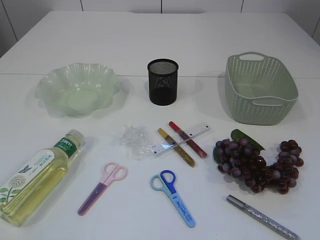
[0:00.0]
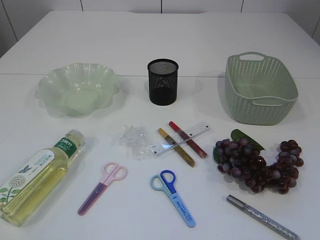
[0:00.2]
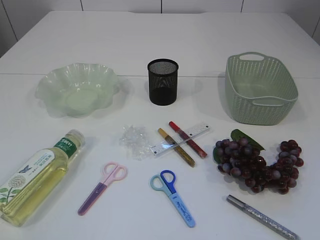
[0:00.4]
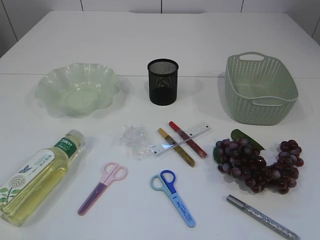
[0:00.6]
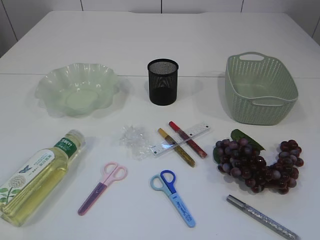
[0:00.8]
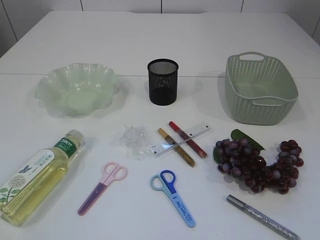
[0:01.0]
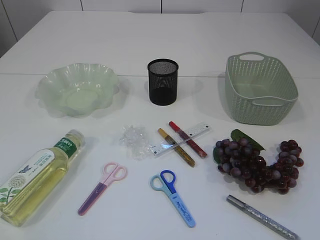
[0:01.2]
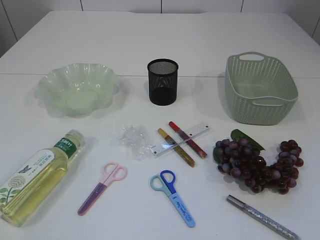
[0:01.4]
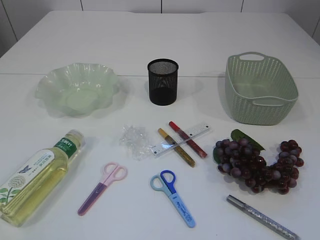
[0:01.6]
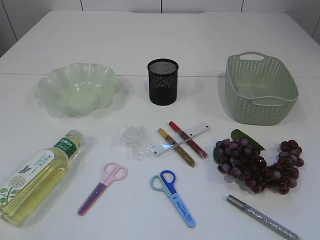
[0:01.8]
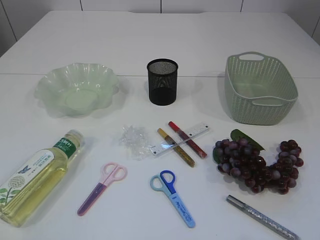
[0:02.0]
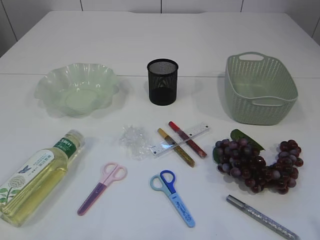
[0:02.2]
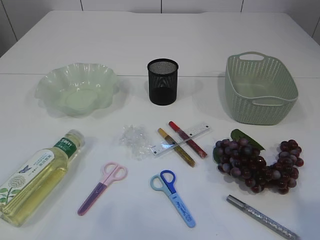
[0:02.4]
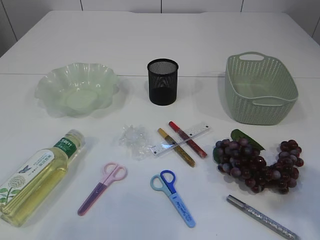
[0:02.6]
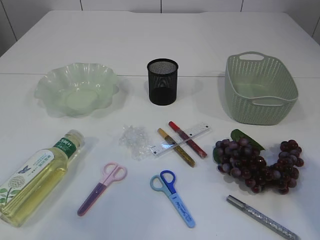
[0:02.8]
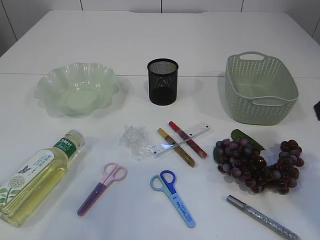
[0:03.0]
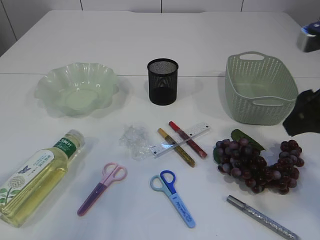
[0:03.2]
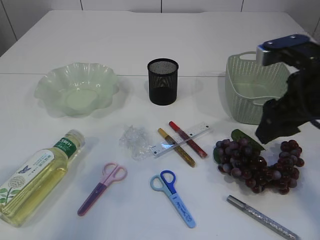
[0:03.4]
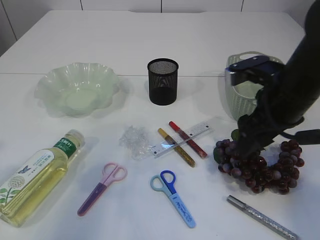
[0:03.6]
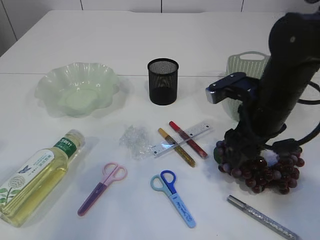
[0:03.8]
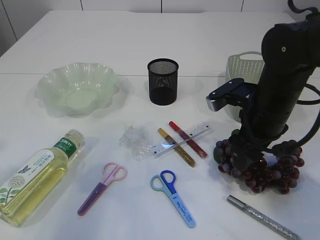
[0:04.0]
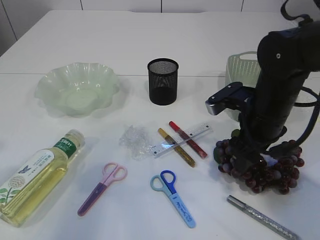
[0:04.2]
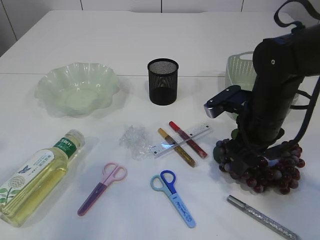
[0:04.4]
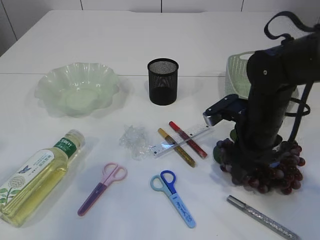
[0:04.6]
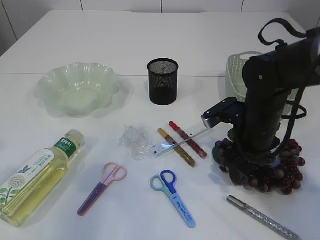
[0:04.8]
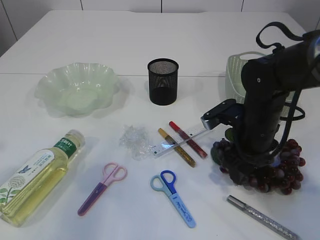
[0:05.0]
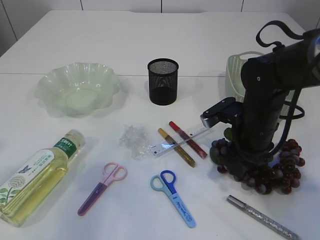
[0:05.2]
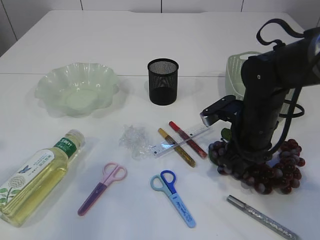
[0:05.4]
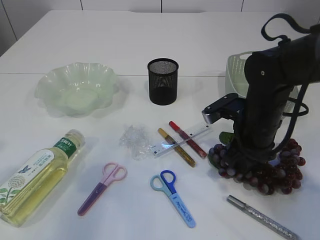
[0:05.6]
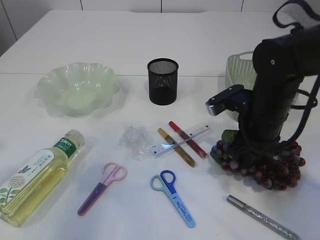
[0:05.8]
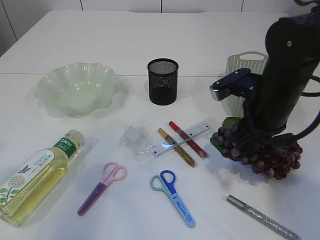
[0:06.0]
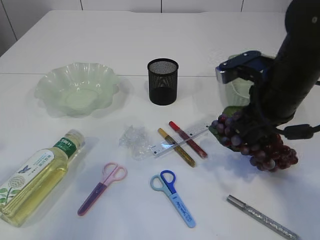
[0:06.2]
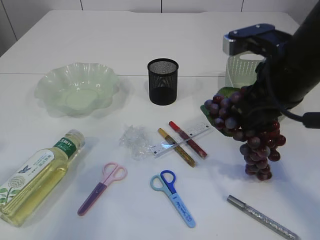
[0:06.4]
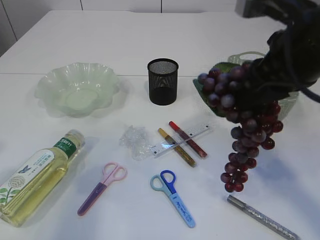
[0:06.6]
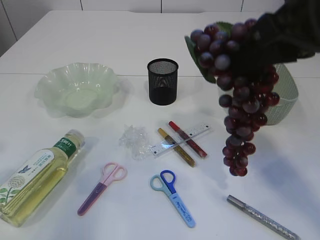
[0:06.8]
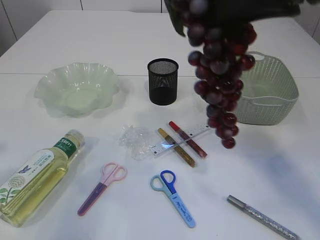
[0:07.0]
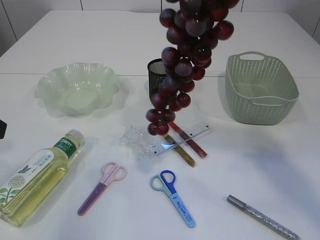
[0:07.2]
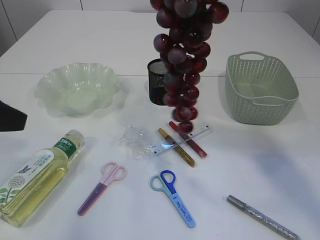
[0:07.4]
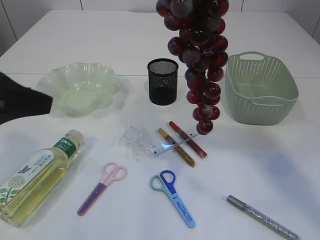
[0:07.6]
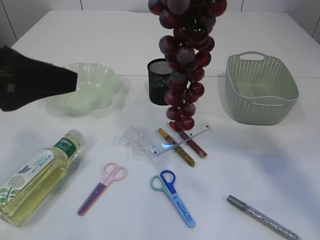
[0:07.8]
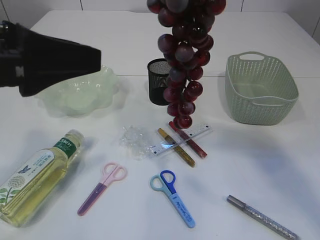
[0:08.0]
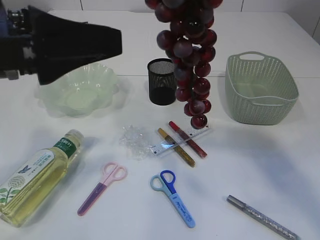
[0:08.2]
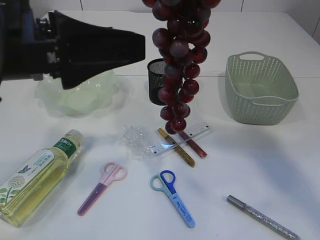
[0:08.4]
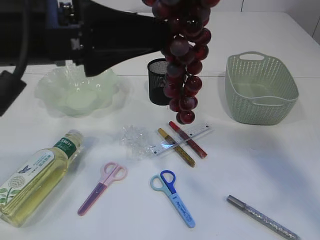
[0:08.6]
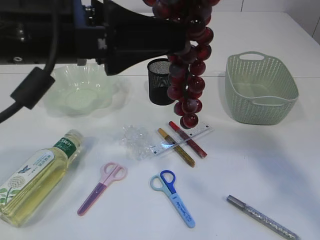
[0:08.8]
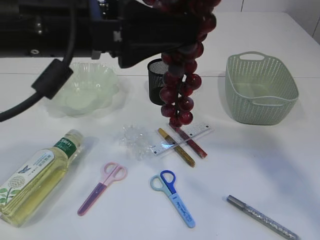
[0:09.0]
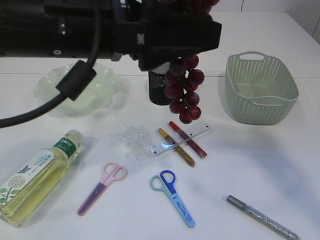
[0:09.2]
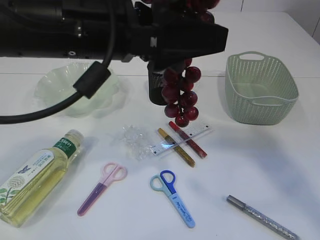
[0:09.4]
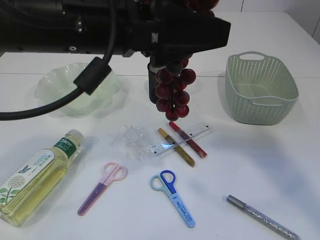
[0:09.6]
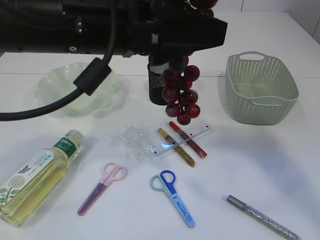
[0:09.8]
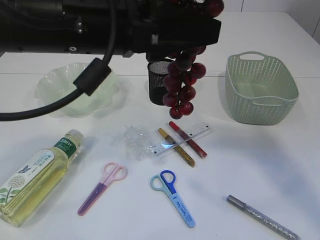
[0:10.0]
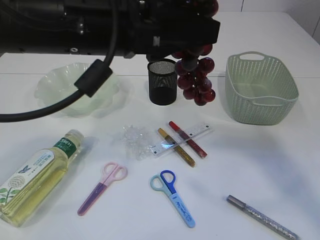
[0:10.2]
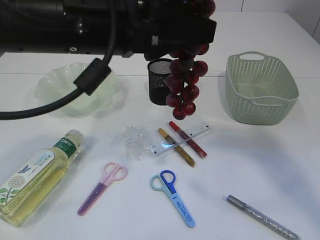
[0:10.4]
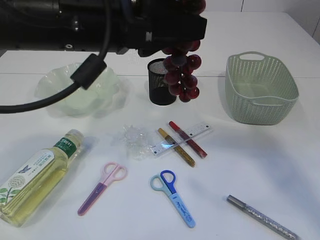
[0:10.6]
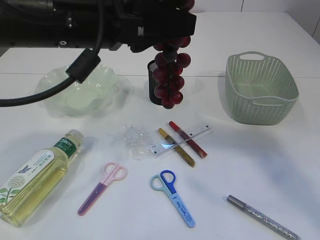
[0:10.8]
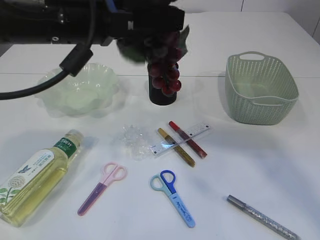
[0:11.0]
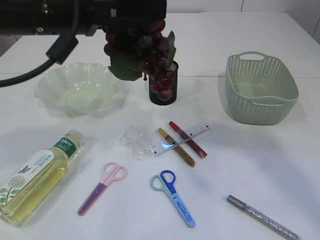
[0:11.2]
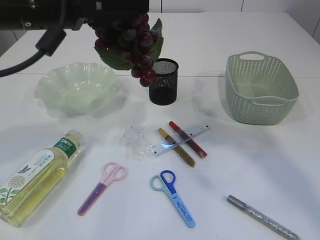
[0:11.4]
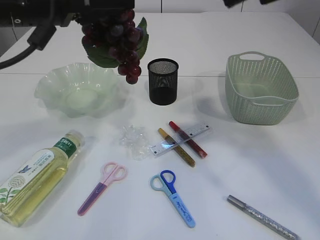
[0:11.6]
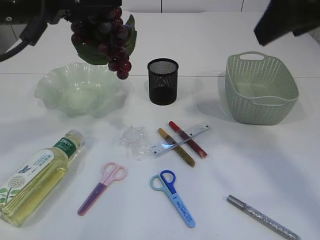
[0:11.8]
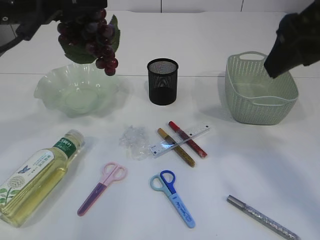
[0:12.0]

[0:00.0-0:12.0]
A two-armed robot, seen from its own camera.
Step, 0.0 to 6.8 s: Pick up the grapes.
Step, 7.0 to 11.6 s: Hand over the grapes.
1.6 to 3.0 s: The left gripper is displaced forward by some 15 cm; the right gripper heads forward, covering about 20 cm.
3.0 to 4.4 s: The right gripper goes approximately 20 cm downward, forward and to the left. The left gripper is displaced forward by some 5 cm, and opens.
4.4 to 6.0 s: The right gripper closes its fingers.
6.0 to 7.6 s: The left gripper travels to the right by some 5 cm, while the right gripper heads upward, covering approximately 25 cm.
7.6 to 9.0 s: The left gripper is displaced to the right by some 10 cm, and opens.
9.0 to 10.4 s: The left gripper closes.
10.4 to 12.0 s: The left gripper goes about 15 cm to the left and forward. The right gripper heads downward and to the right, covering some 10 cm.

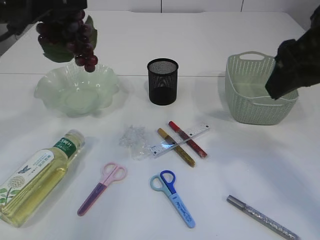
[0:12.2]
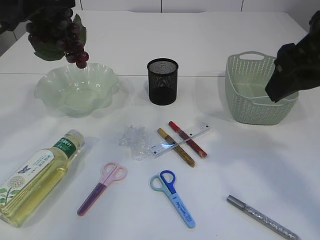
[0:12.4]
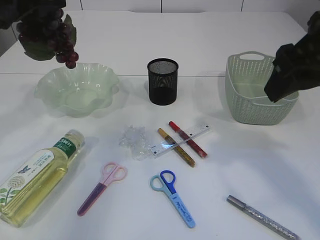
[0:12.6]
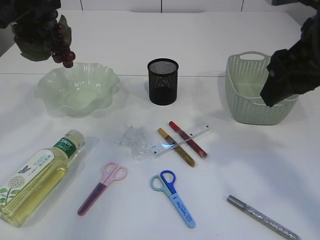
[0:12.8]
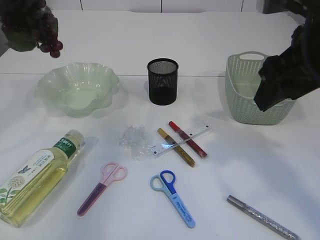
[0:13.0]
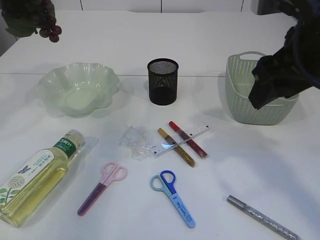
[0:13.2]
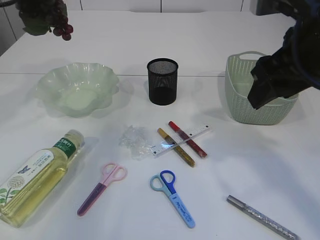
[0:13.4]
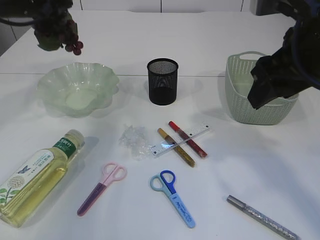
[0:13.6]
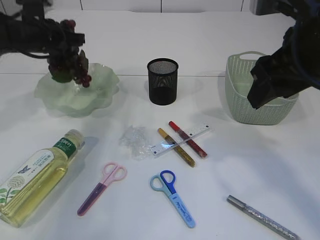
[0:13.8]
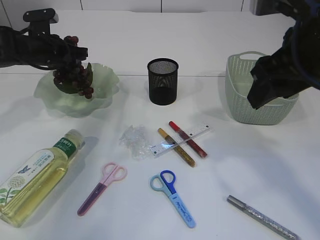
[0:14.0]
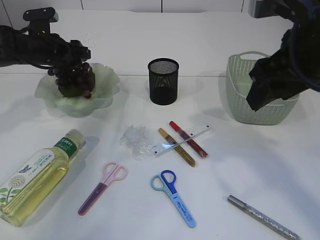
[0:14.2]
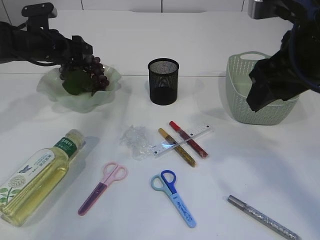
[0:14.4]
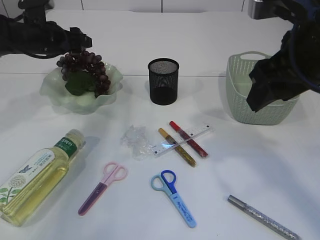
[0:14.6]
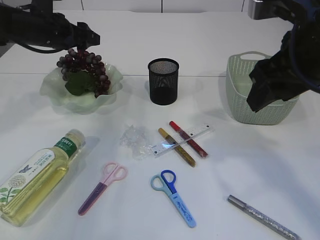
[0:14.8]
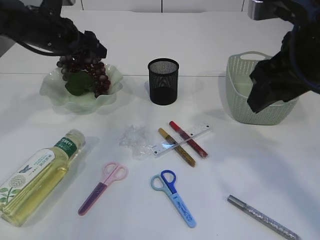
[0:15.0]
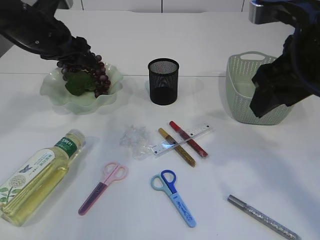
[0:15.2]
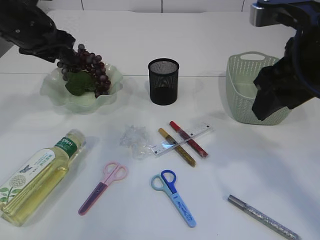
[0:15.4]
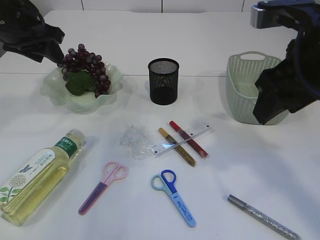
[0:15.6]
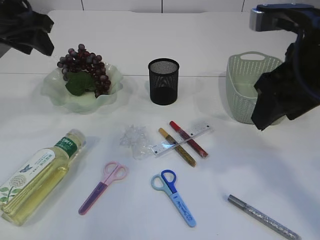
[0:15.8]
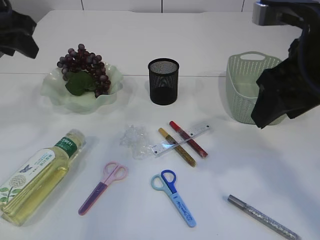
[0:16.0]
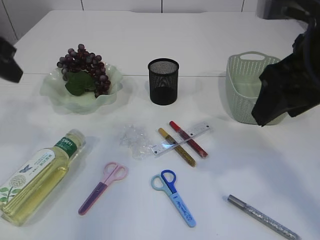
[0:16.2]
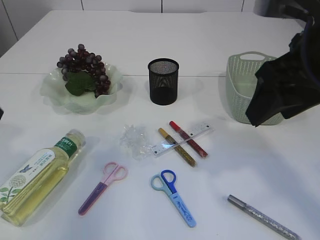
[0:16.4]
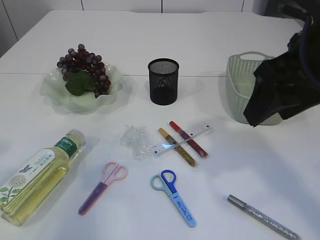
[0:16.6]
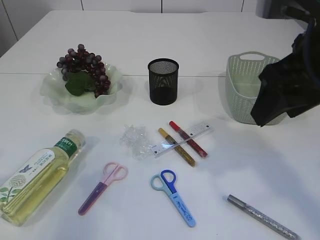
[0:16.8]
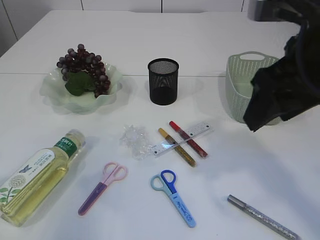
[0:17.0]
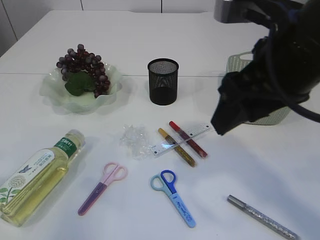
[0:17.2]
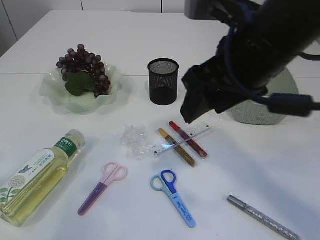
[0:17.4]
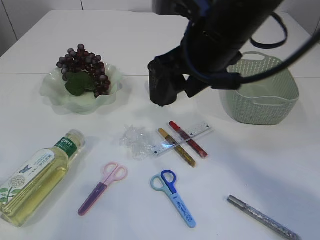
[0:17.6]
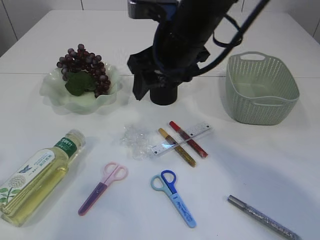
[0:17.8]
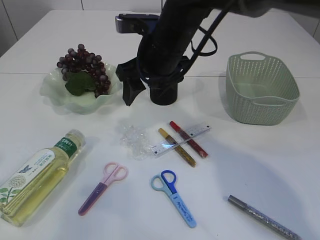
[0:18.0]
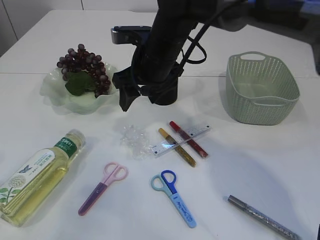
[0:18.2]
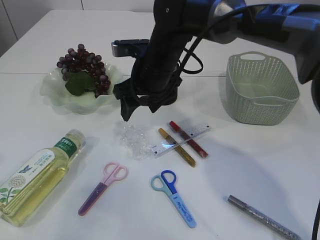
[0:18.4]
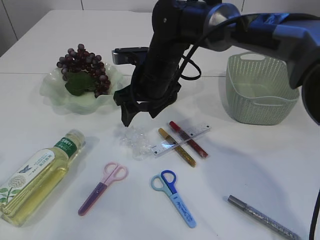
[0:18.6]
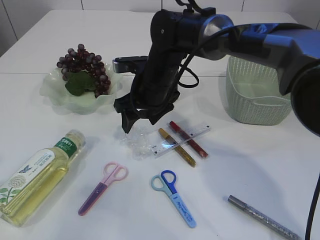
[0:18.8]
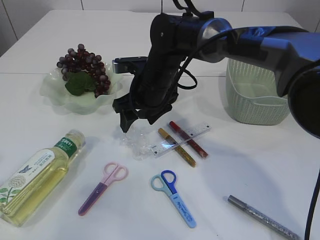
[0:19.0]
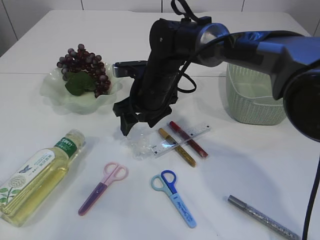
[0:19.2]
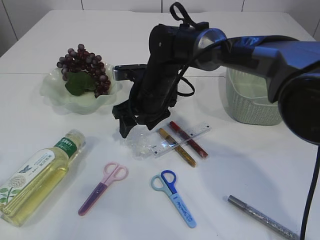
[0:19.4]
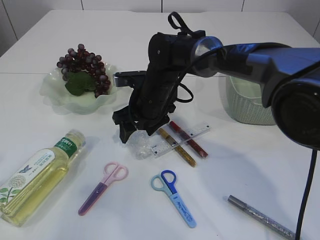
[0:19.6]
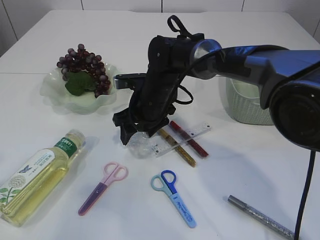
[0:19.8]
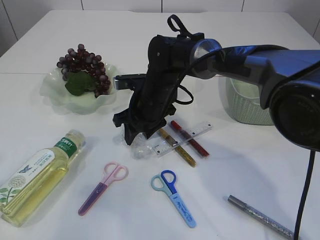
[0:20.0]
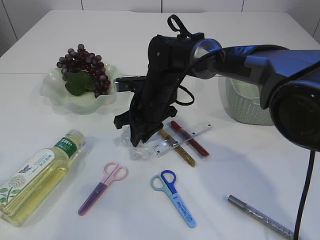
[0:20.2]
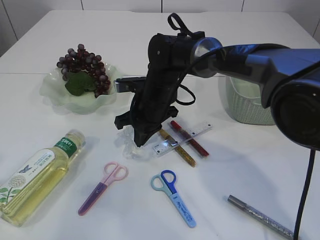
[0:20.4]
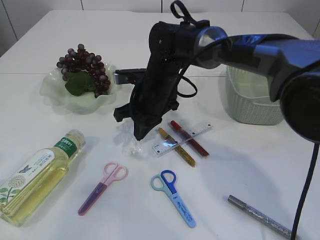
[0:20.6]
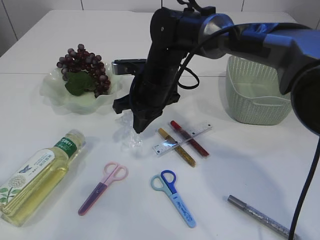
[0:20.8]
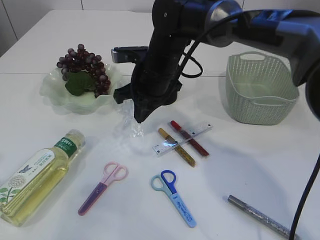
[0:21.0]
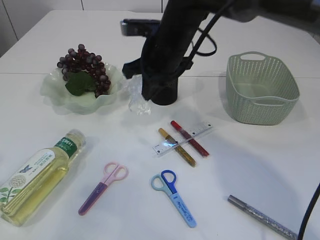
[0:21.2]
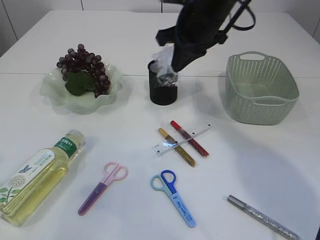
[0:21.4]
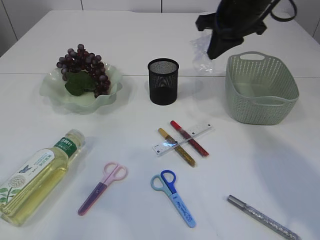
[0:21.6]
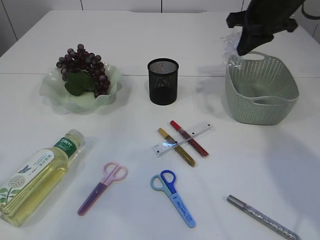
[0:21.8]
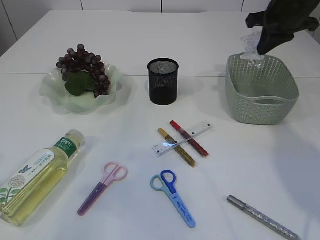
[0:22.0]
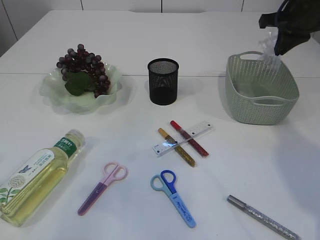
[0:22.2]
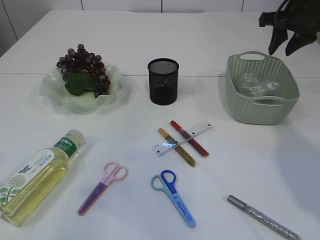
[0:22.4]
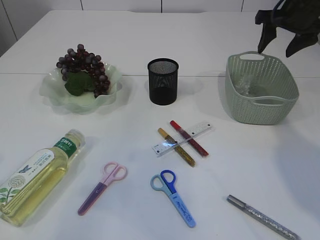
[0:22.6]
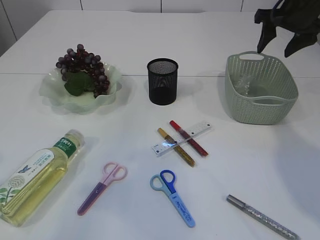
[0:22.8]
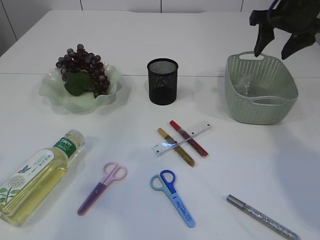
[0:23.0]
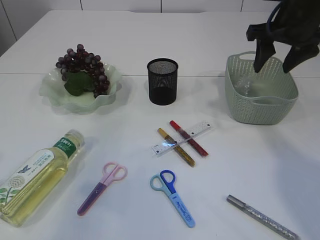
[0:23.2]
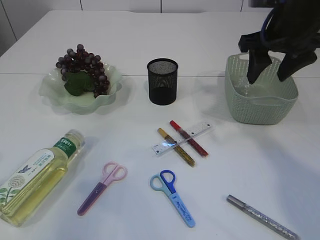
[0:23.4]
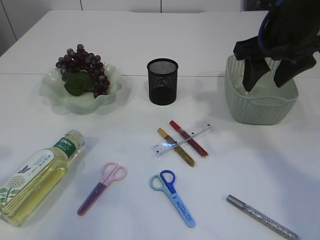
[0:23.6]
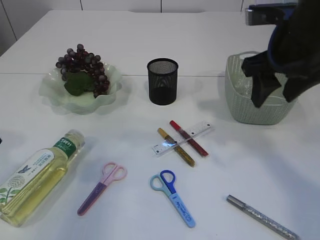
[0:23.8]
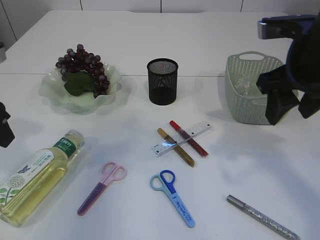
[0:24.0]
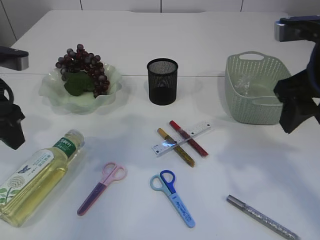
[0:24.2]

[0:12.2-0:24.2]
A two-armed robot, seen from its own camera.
Step, 12.2 to 15.6 s: Place the grapes in the plate.
Step, 15.8 to 21.2 s: Pick up the plastic.
Step, 21.4 to 23.0 s: Place the plastic in the basket.
12.2 to 13.8 s: The left gripper is displaced forward and downward by some 20 cm.
13.8 to 15.2 s: The left gripper moves backward, roughly 5 cm, and opens.
15.2 to 16.6 s: The left gripper travels backward by some 25 cm.
16.6 to 18.2 s: The right gripper travels forward, to the left and downward by approximately 25 cm.
18.2 to 19.8 s: The right gripper travels downward by about 10 cm.
19.8 to 21.2 s: The right gripper moves upward, approximately 10 cm, and closes its fingers.
21.2 to 22.6 s: The right gripper moves to the right, approximately 25 cm, and opens up.
22.6 to 24.2 s: The left gripper is displaced forward by some 15 cm. Meanwhile the right gripper heads backward, covering some 20 cm.
